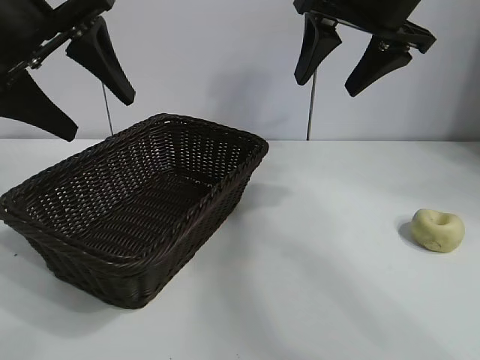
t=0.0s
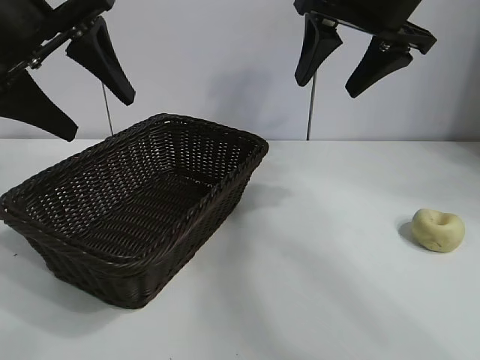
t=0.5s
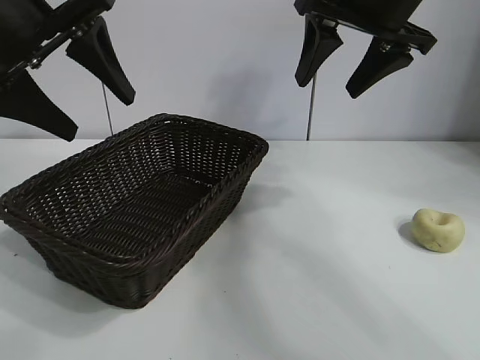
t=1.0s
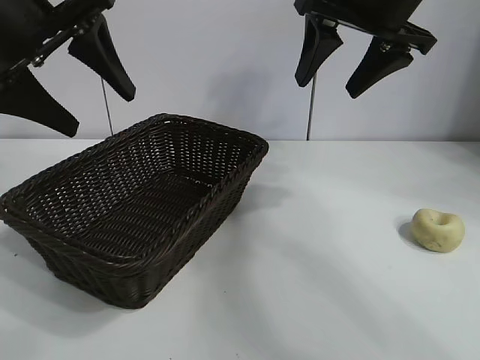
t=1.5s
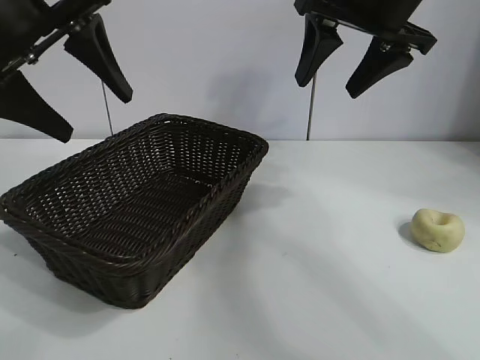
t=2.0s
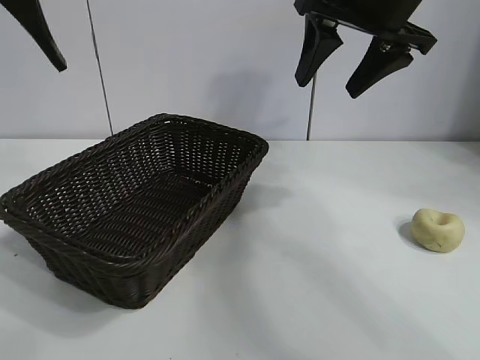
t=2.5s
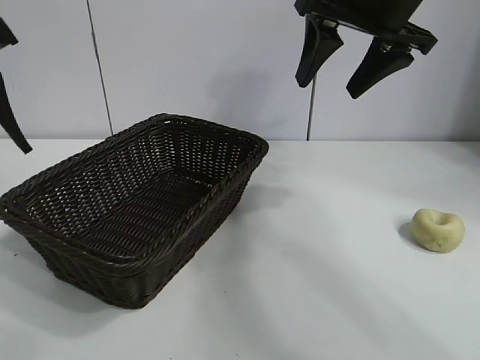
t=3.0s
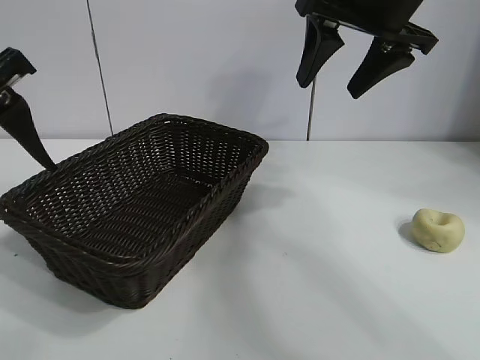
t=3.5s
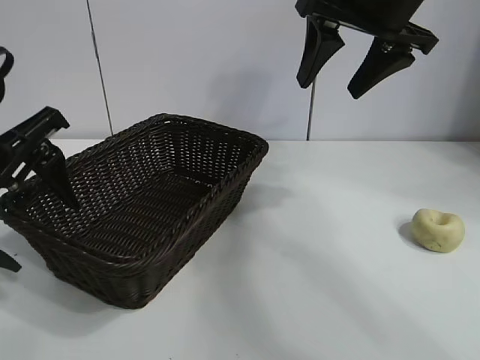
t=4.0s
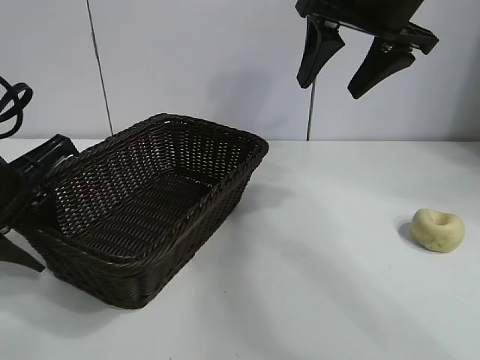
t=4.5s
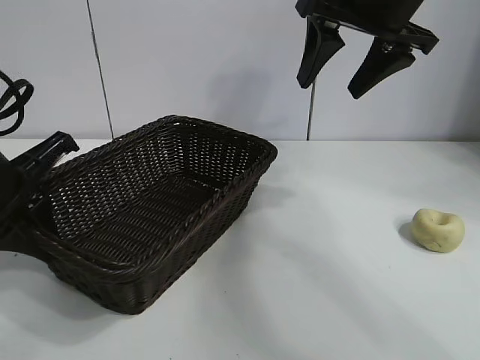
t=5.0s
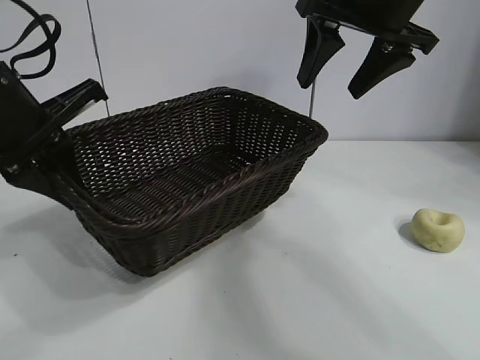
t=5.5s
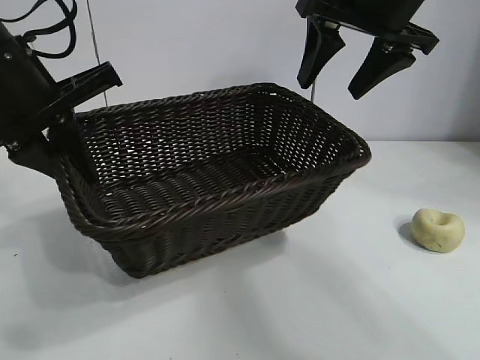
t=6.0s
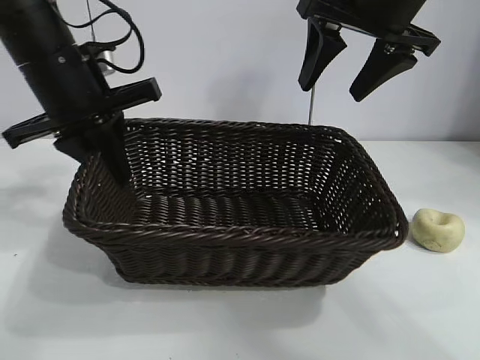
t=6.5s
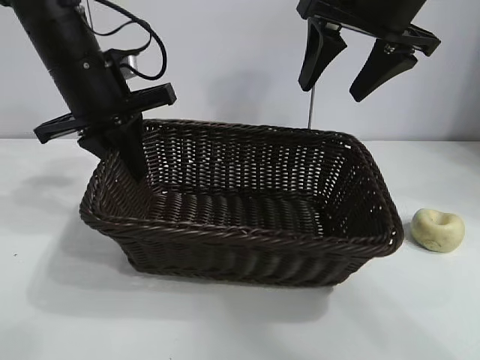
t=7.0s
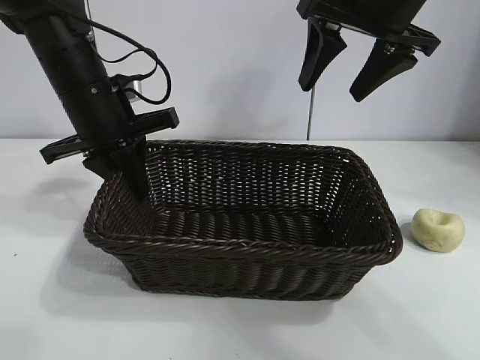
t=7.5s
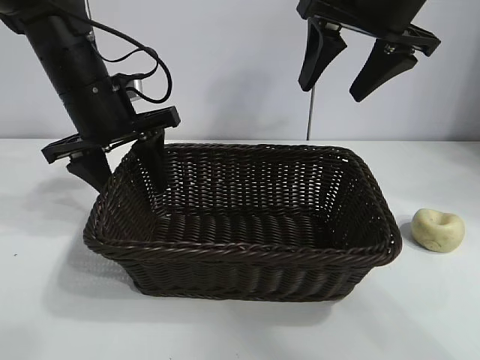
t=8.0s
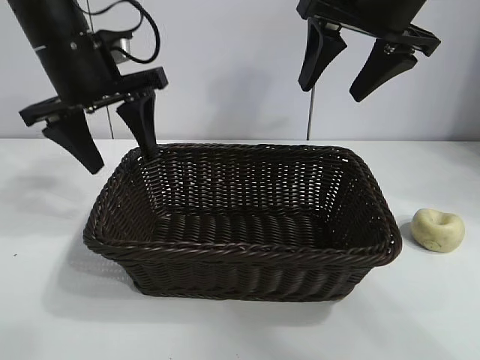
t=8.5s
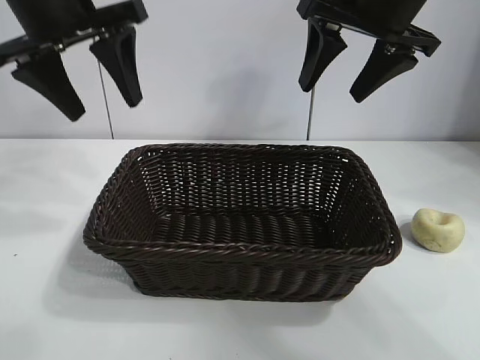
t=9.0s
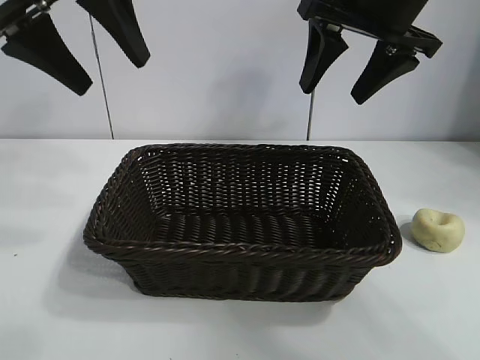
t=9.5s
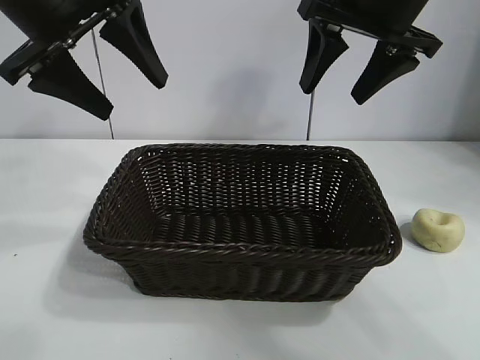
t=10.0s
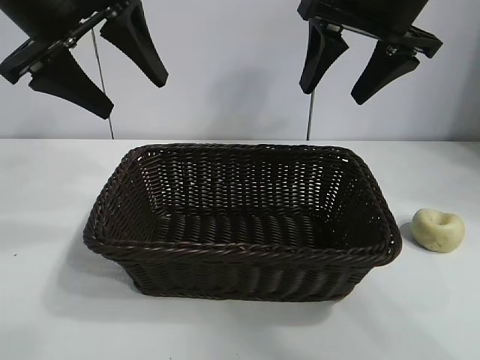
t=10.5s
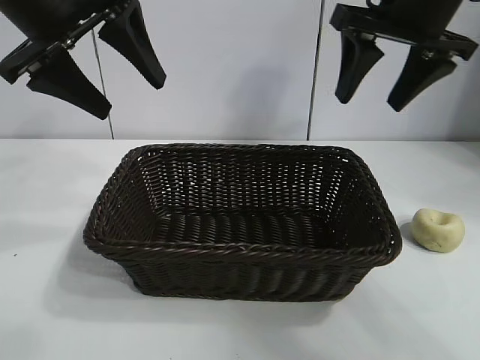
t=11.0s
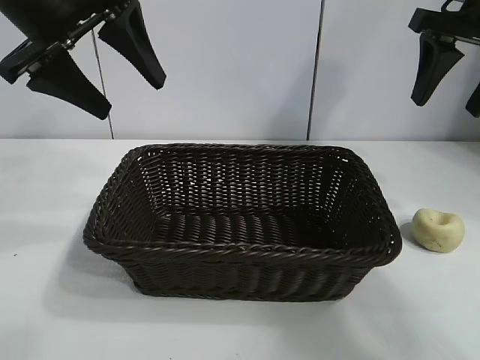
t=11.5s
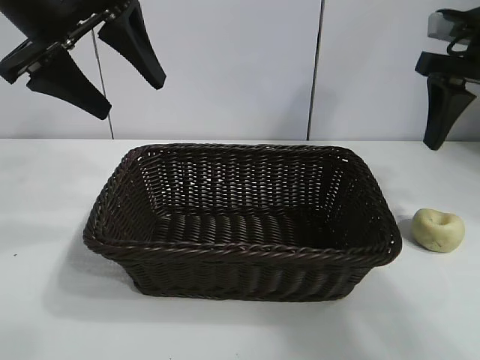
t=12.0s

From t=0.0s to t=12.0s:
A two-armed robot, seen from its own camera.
Task of the whole recording: pick up the egg yolk pastry and put it into the basket.
Step, from t=1.5s to t=4.5s: Grasp the basket with left gripper.
Step, from t=5.0s to t=8.0s: Place the basket in the center of view with left gripper.

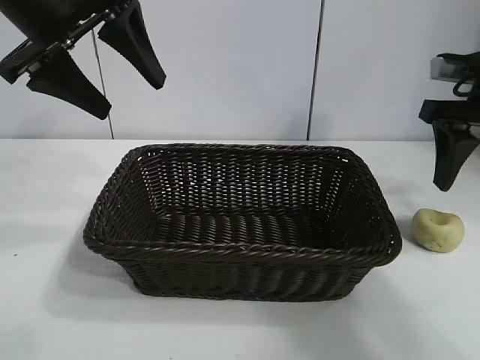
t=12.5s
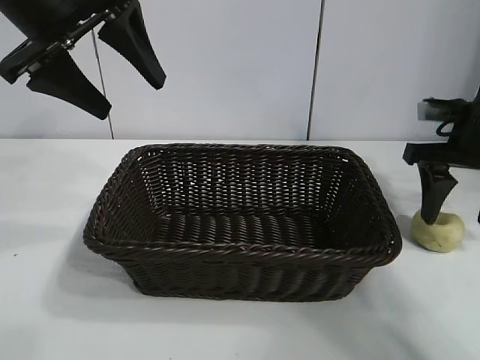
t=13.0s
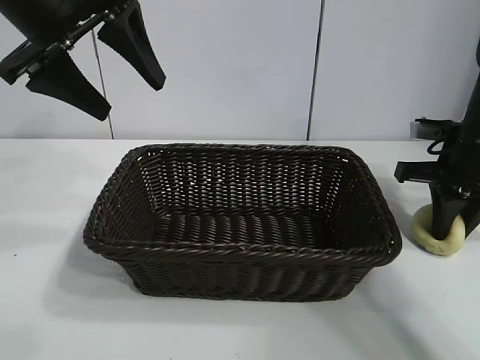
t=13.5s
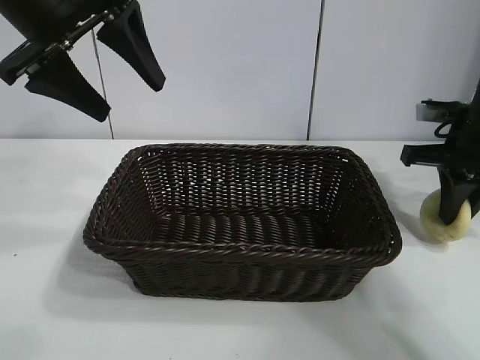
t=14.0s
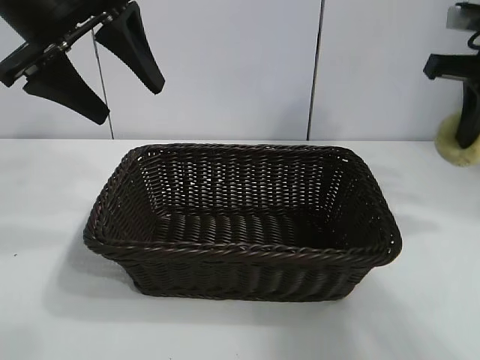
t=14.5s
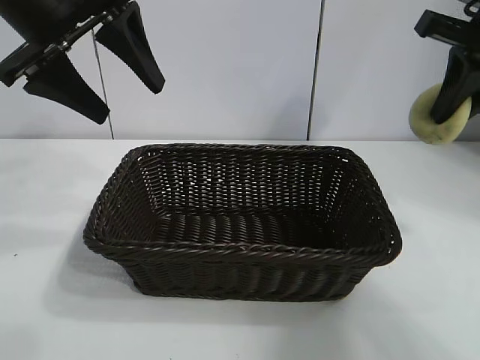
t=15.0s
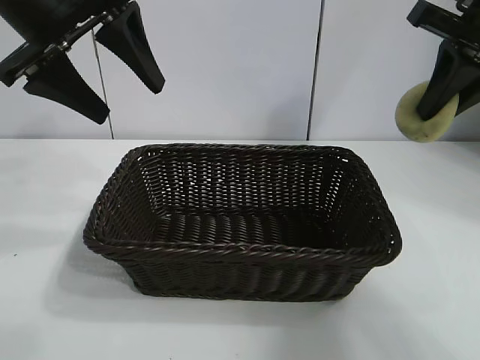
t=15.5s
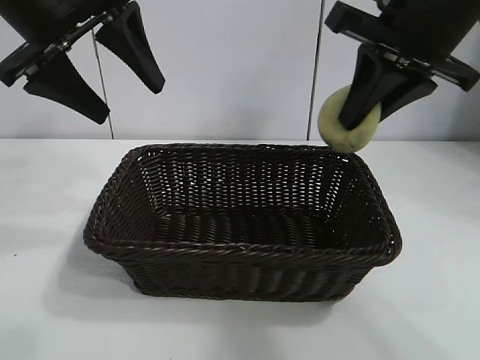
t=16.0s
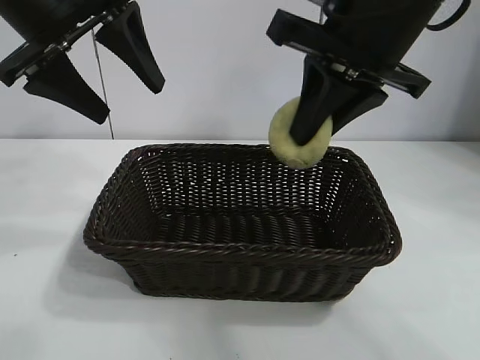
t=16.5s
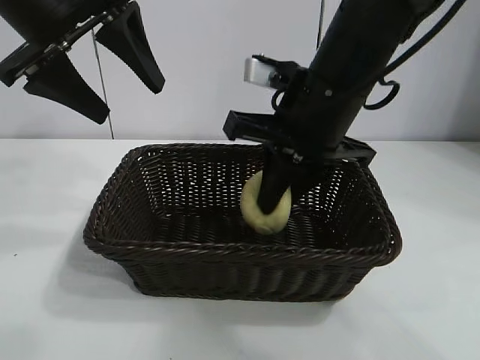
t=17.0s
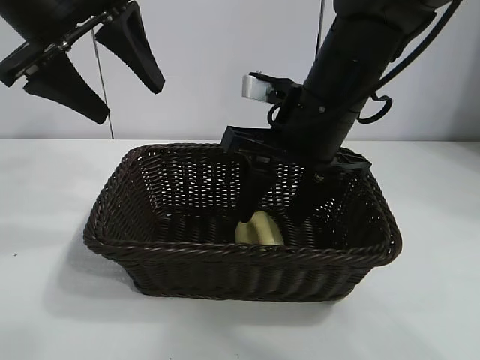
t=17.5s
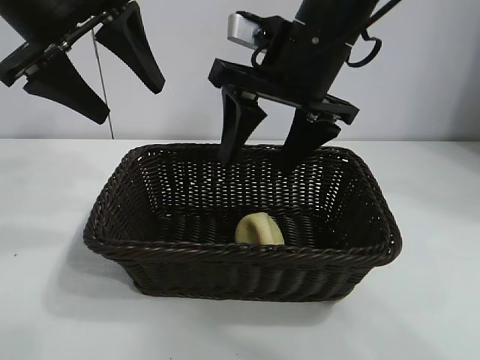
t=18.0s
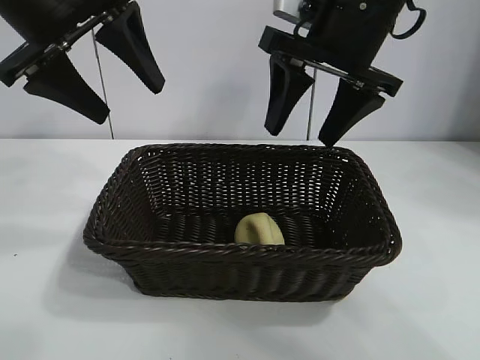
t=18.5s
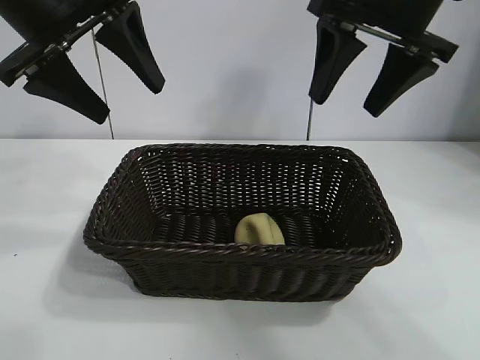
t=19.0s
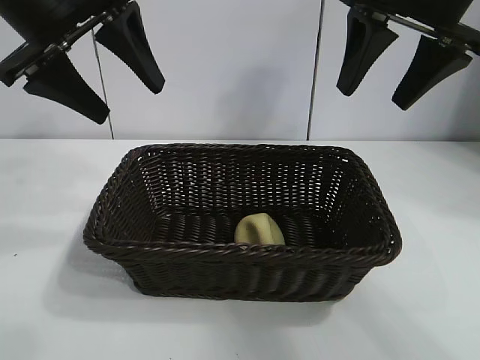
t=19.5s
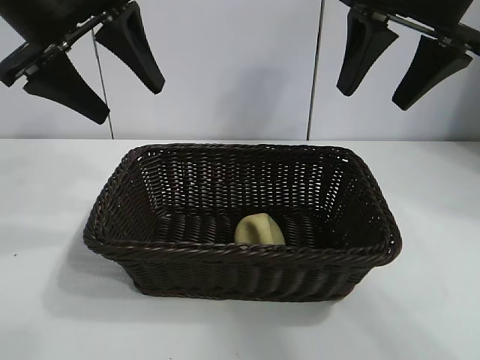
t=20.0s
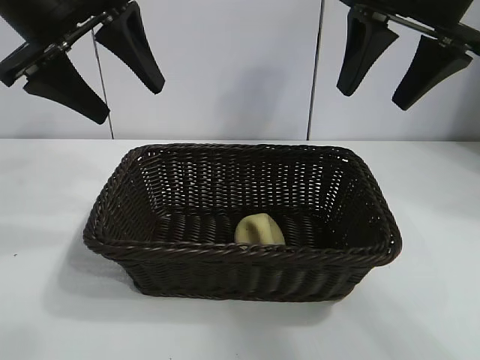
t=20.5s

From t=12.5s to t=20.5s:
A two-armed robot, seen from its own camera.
Task of the whole recording: pick up the egg yolk pastry and put it into the basket.
Step, from t=14.0s to t=17.5s: Place the egg yolk pastry in the basket with right gripper.
